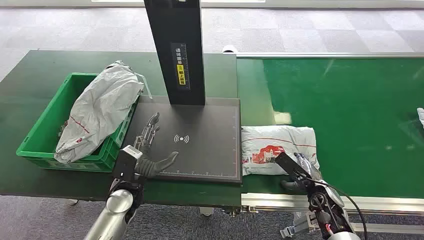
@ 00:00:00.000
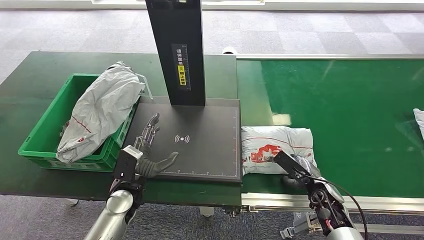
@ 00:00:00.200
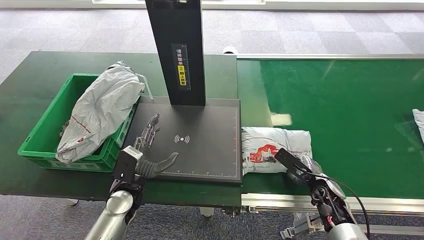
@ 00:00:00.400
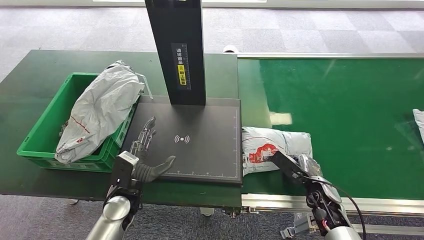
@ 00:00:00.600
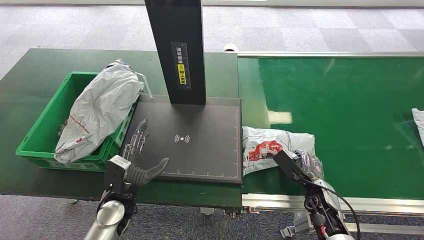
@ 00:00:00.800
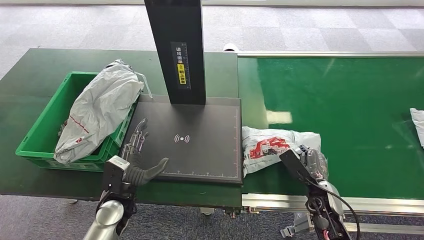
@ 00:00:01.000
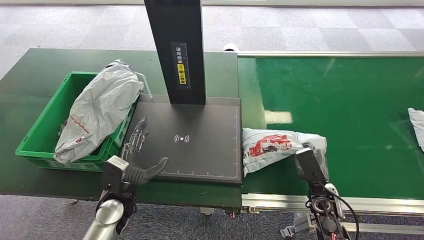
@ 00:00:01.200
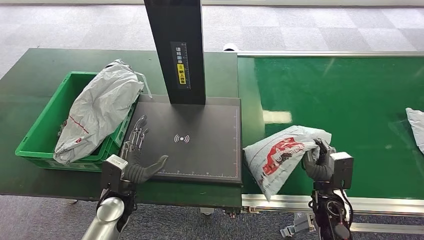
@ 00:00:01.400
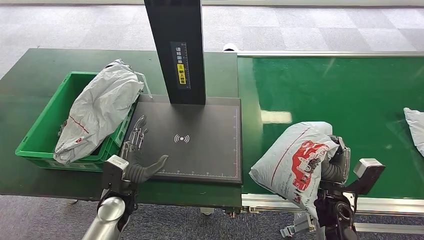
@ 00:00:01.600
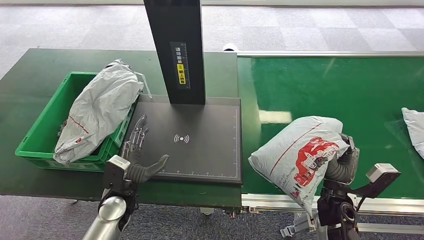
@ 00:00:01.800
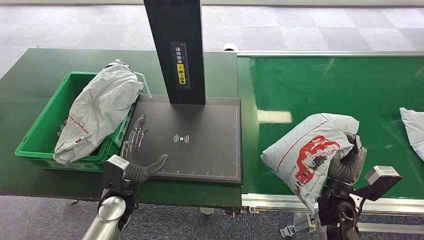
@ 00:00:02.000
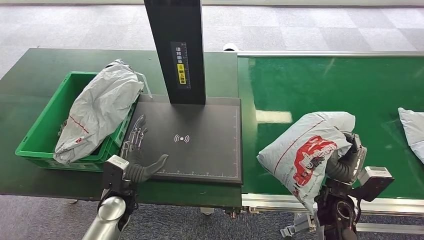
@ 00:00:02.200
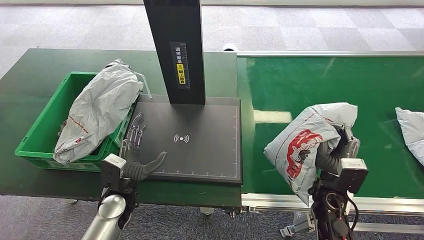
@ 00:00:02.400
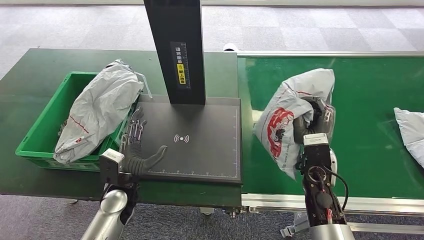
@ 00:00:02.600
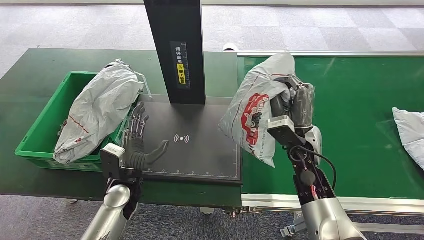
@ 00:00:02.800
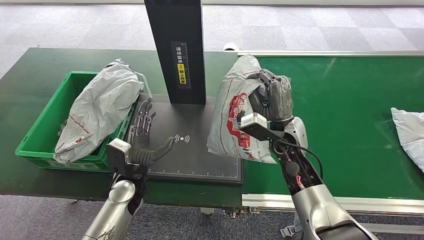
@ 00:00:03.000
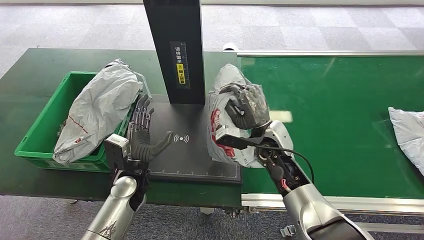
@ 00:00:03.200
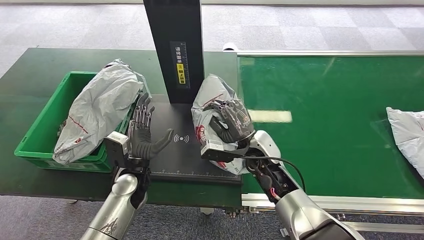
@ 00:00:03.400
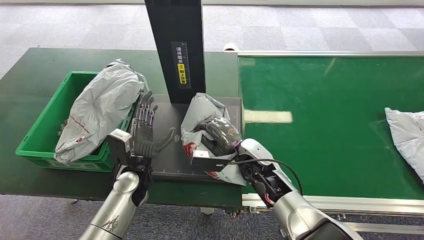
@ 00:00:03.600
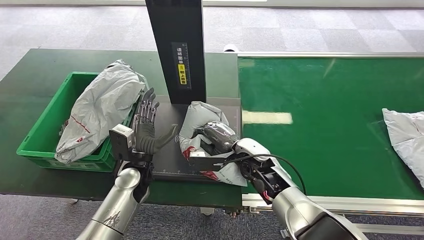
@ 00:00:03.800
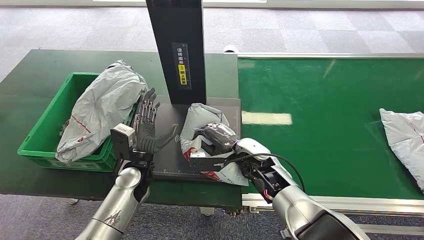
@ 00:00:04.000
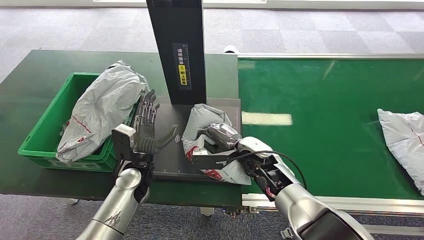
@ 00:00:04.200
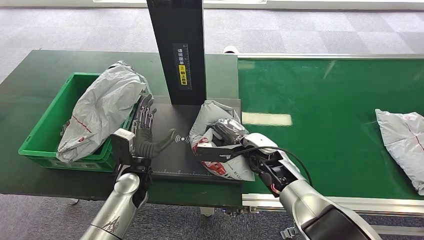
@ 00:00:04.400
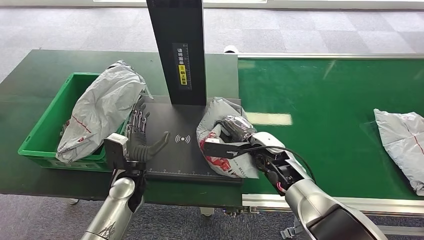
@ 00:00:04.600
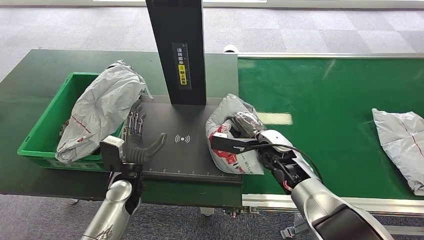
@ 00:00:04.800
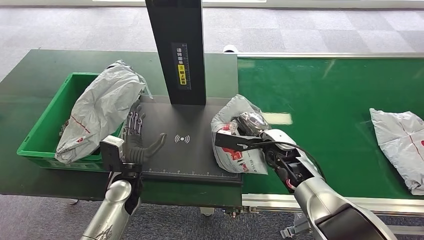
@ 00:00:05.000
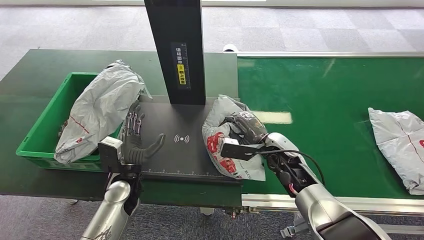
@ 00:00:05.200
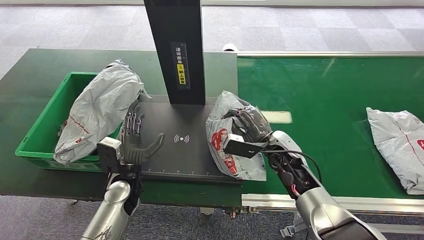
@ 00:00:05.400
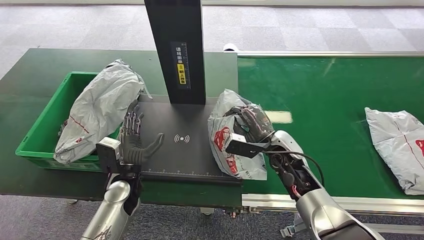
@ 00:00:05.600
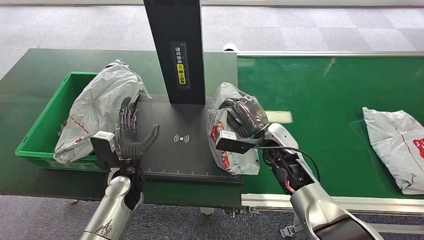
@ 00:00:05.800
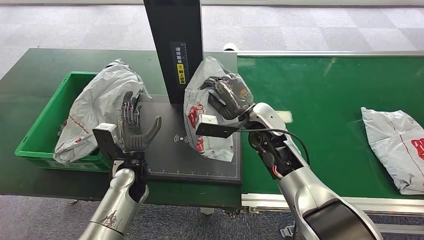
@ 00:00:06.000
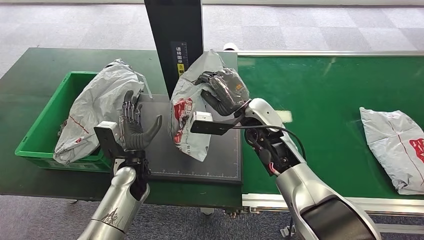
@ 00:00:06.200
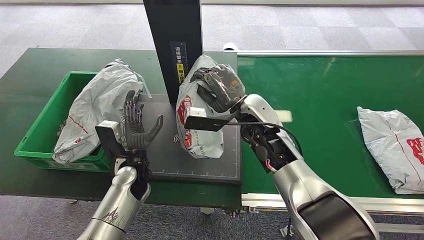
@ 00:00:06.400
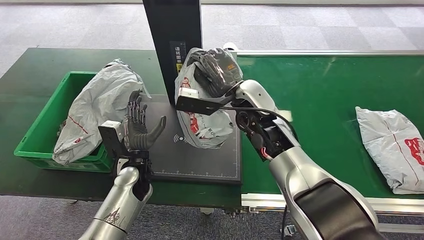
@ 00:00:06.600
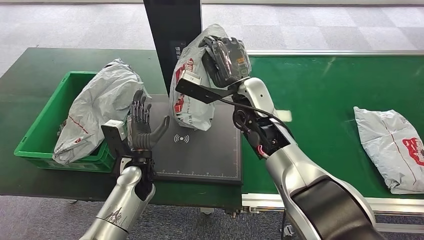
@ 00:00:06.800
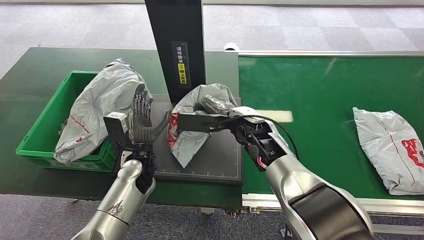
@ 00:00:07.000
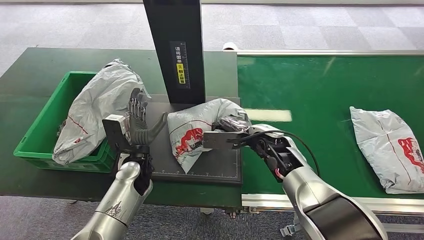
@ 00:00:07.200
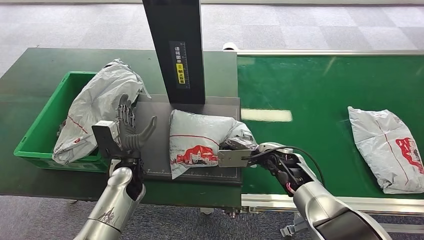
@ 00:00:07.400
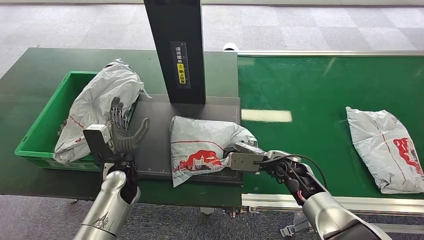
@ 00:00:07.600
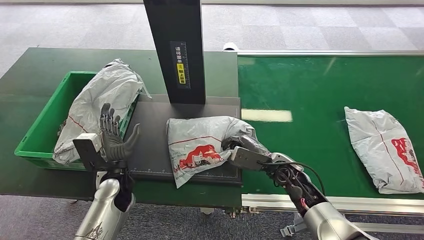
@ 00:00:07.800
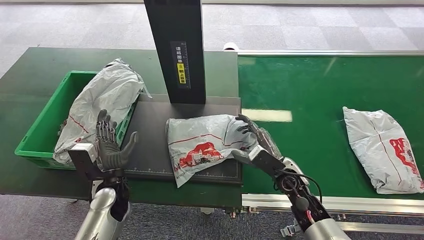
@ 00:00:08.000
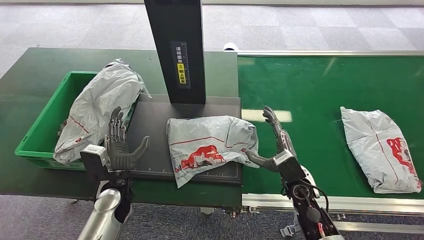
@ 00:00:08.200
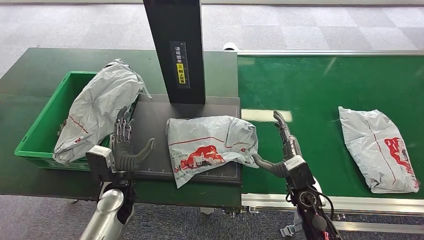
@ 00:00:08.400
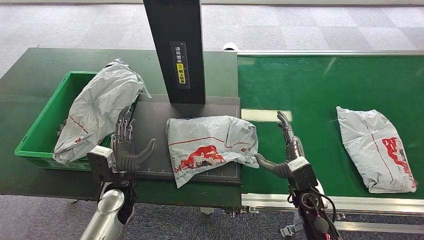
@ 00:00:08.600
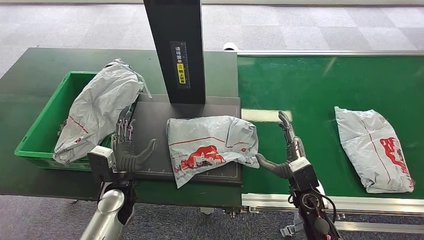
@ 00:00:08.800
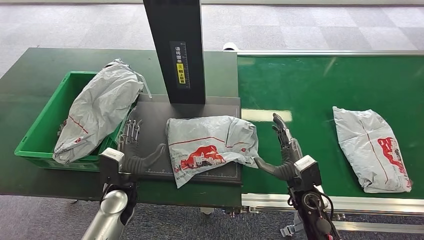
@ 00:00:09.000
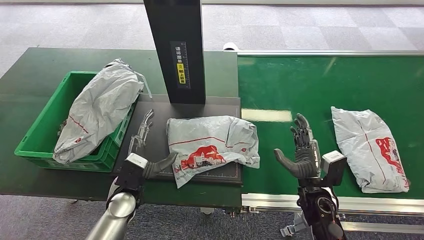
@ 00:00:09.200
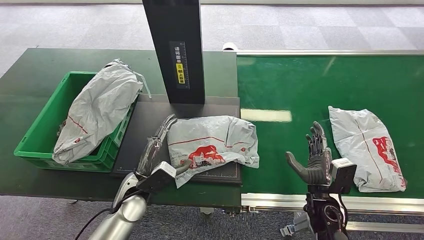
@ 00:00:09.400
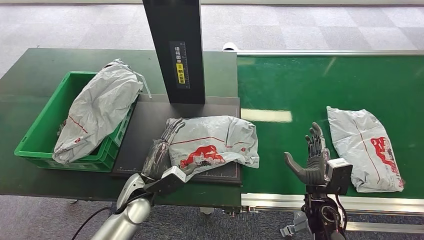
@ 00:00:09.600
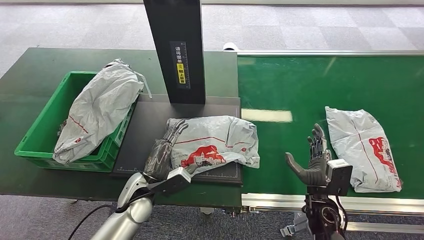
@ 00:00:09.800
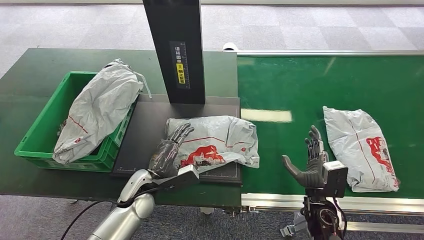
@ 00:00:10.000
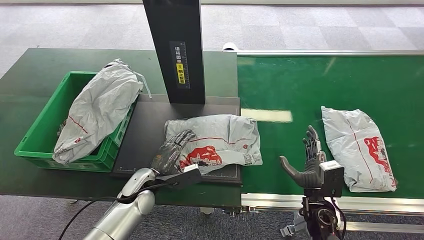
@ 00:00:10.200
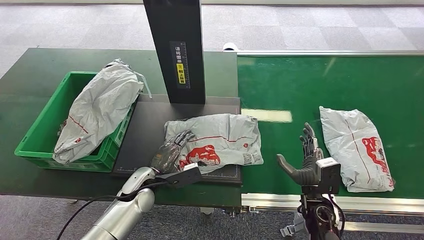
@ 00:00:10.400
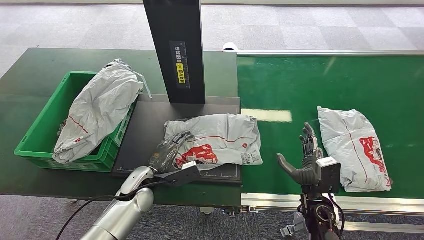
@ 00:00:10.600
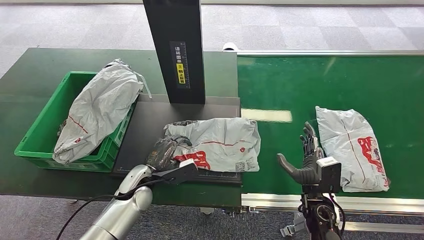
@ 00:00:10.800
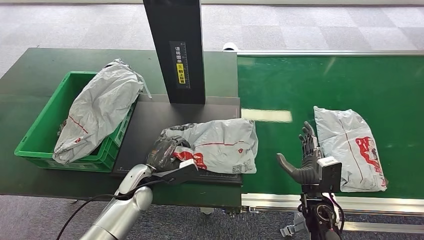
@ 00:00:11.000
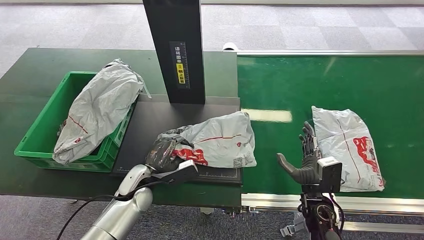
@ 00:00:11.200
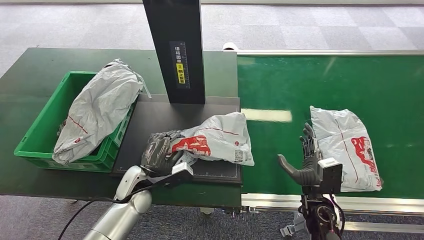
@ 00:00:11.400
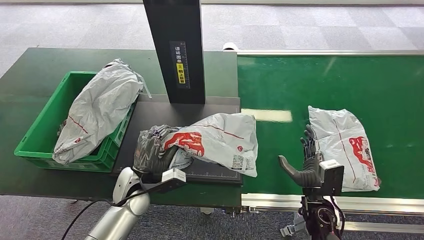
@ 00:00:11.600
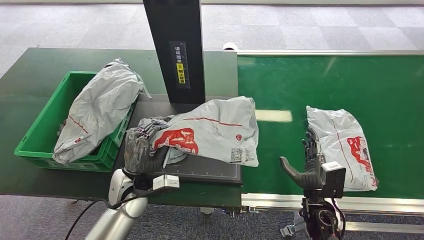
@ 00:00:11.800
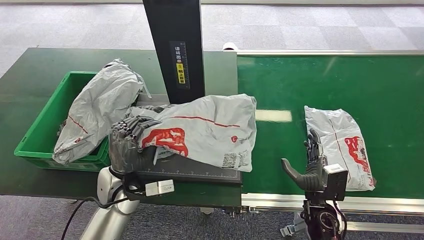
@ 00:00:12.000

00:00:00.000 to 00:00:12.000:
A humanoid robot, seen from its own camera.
Step, 00:00:00.000 to 00:00:02.000: Pick up the package from the conveyor belt.
Step, 00:00:02.200 to 00:00:07.400: Place the package onto the inbound machine.
00:00:01.600 to 00:00:03.000: The right hand shifts roughly 20 cm upward, to the left and forward. Meanwhile the left hand changes place by approximately 5 cm.
00:00:07.600 to 00:00:09.000: The right hand goes about 10 cm backward.
00:00:10.400 to 00:00:12.000: The left hand moves upward, roughly 10 cm.

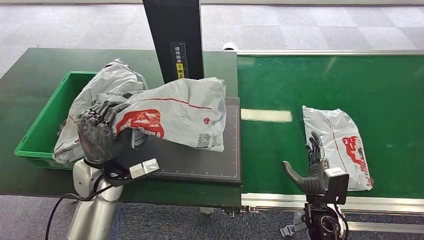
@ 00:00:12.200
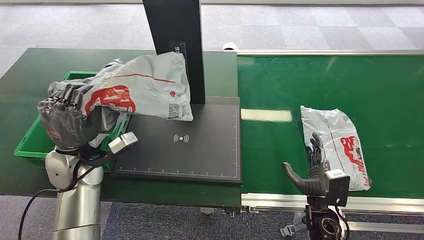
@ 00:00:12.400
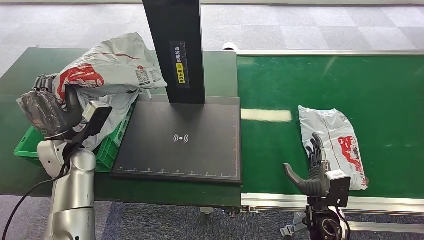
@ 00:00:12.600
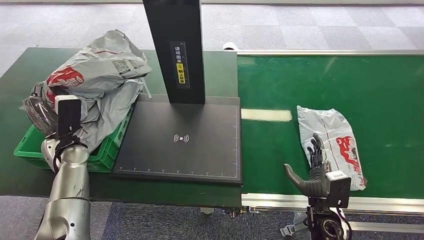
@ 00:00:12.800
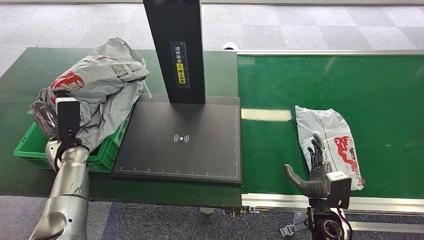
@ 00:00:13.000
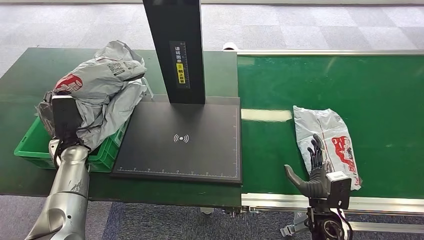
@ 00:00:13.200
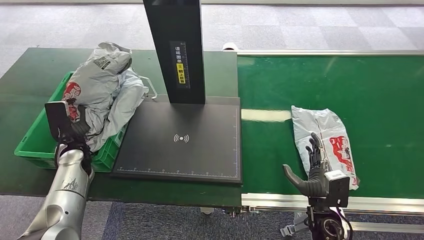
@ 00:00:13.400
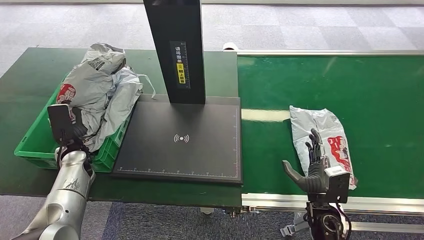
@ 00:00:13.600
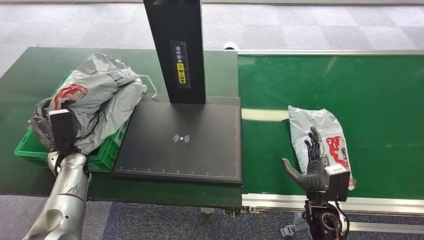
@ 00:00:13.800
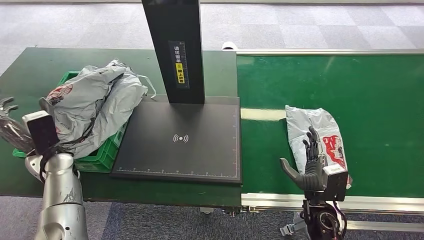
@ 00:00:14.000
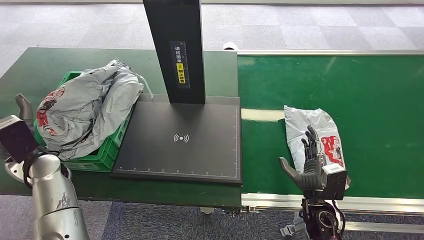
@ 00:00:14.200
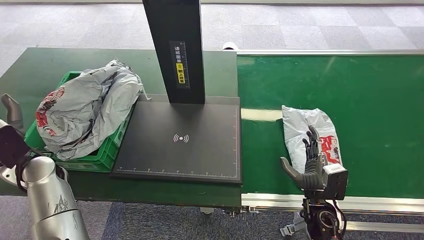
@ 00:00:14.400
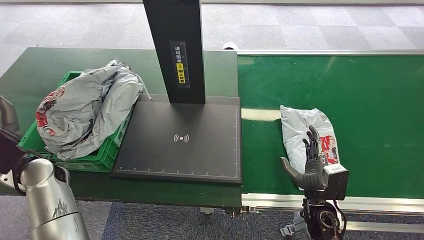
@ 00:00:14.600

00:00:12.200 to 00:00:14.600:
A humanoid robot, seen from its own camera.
Step, 00:00:12.400 to 00:00:14.600: Place the package into the parcel locker.
00:00:13.400 to 00:00:14.600: The left hand moves upward and backward, some 10 cm.
